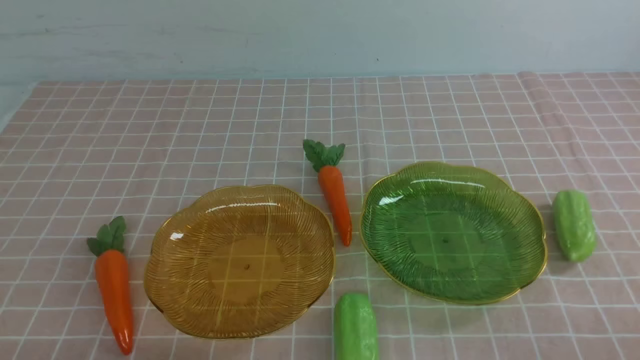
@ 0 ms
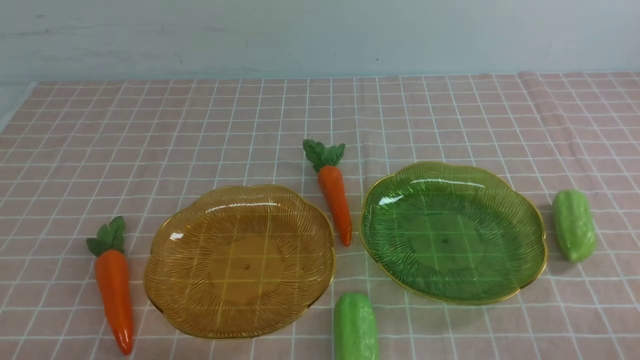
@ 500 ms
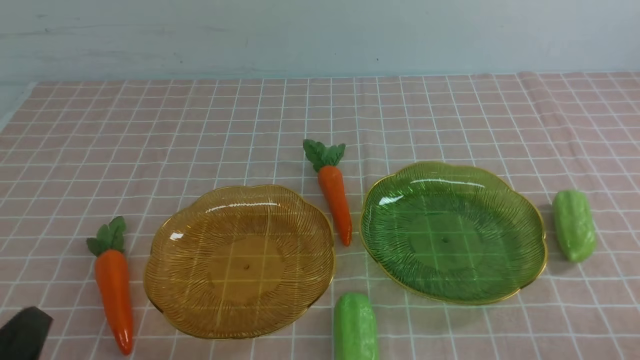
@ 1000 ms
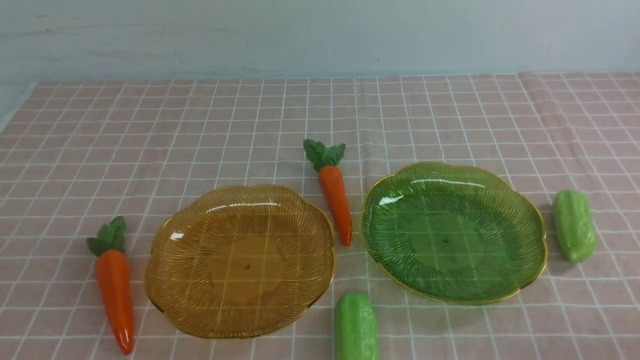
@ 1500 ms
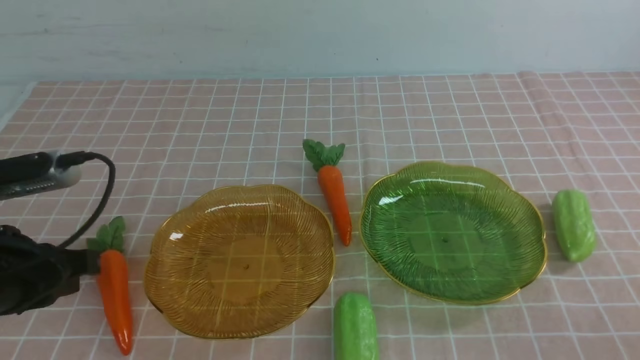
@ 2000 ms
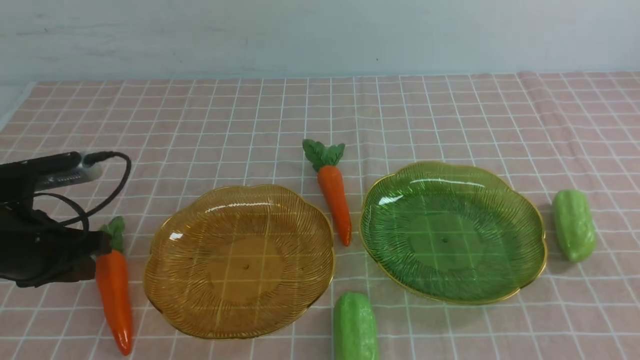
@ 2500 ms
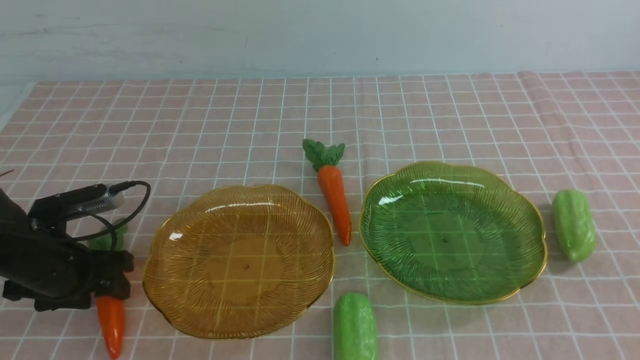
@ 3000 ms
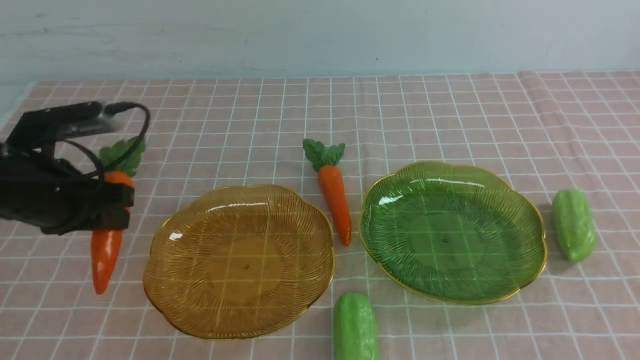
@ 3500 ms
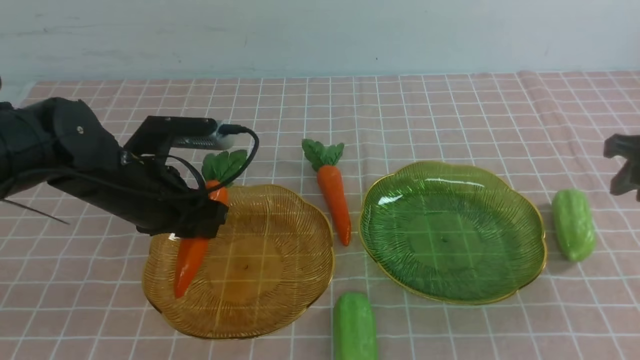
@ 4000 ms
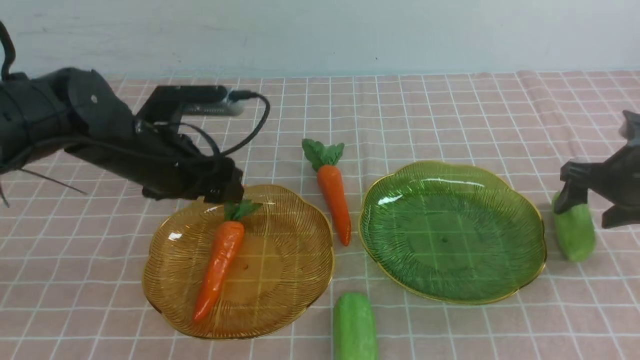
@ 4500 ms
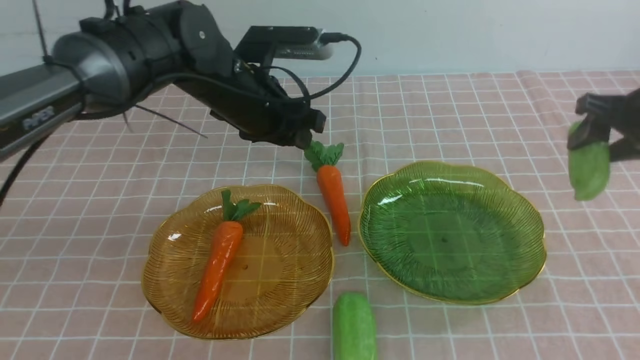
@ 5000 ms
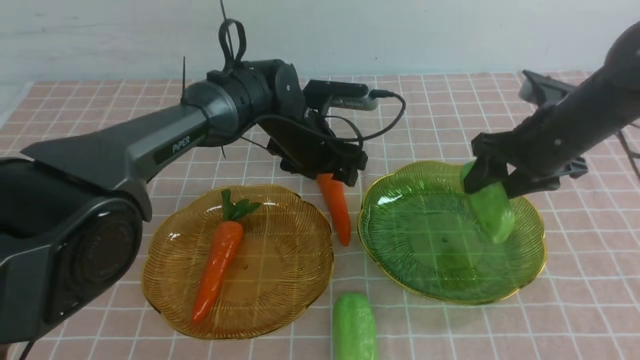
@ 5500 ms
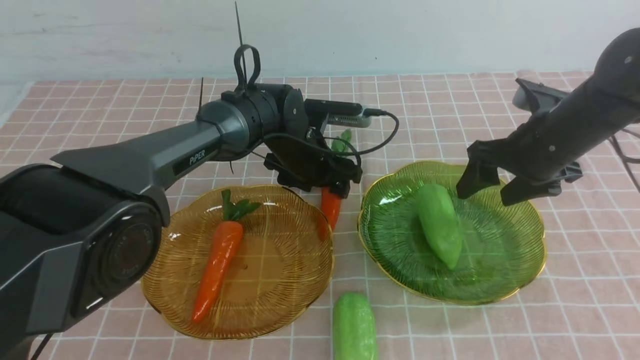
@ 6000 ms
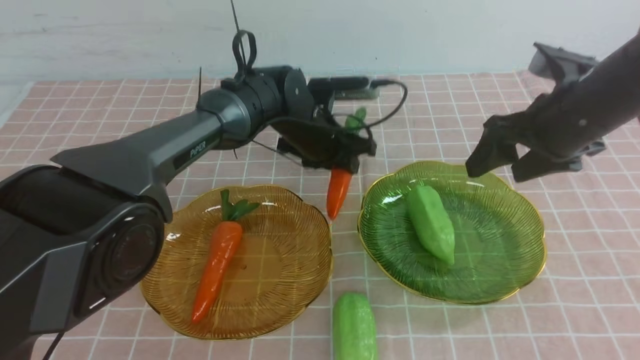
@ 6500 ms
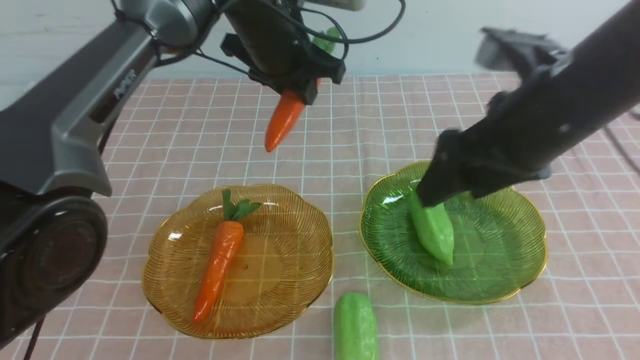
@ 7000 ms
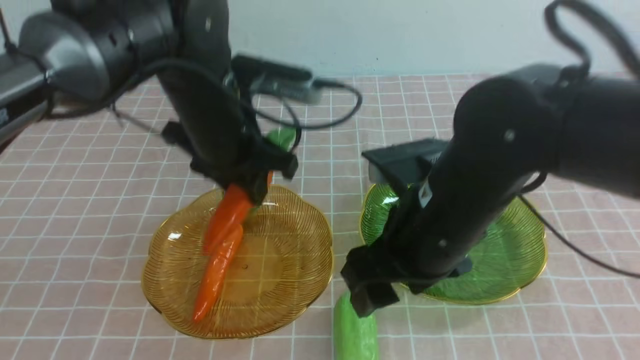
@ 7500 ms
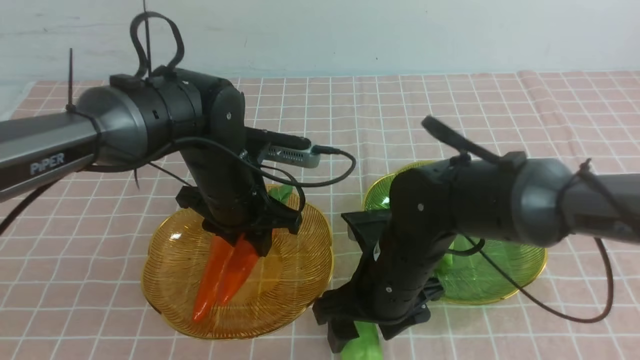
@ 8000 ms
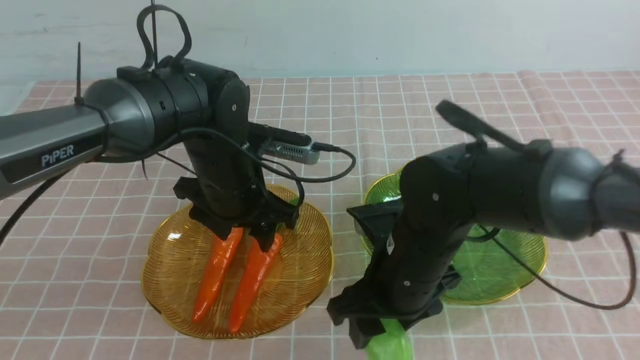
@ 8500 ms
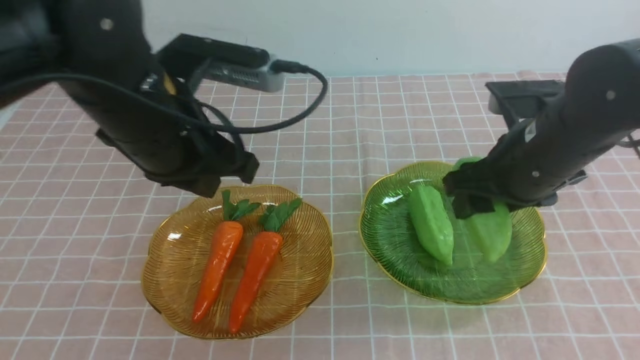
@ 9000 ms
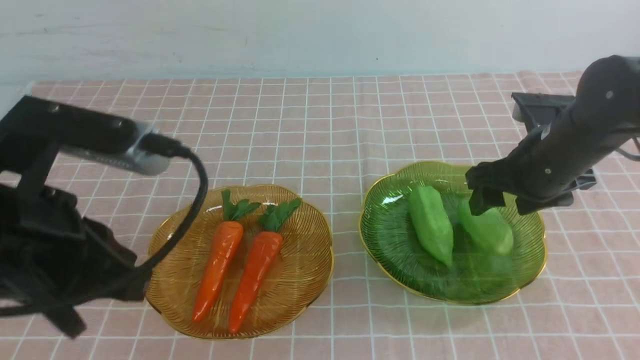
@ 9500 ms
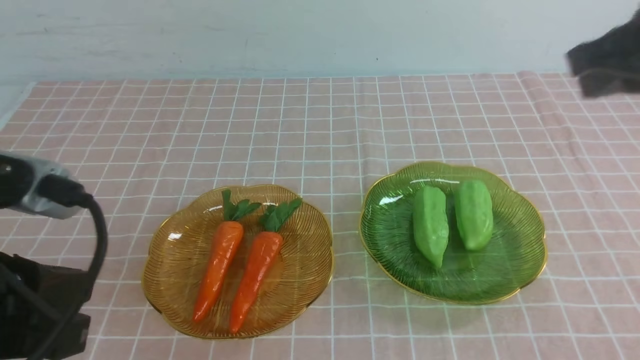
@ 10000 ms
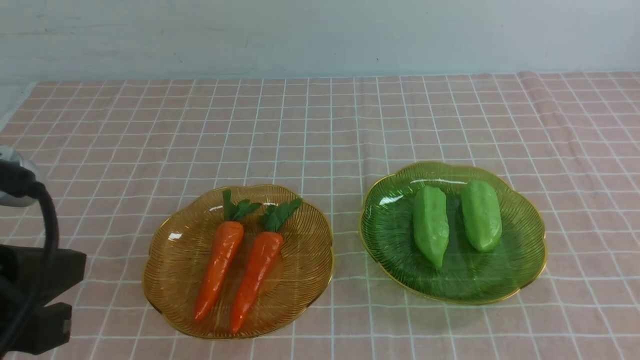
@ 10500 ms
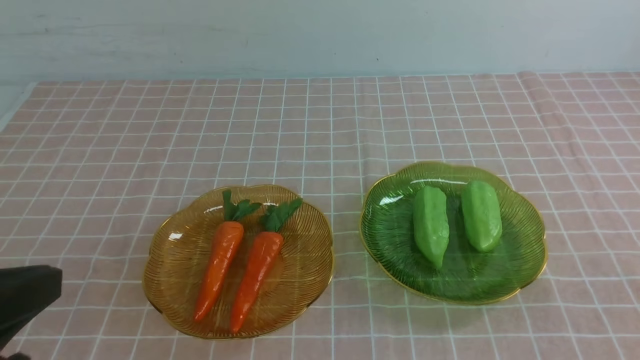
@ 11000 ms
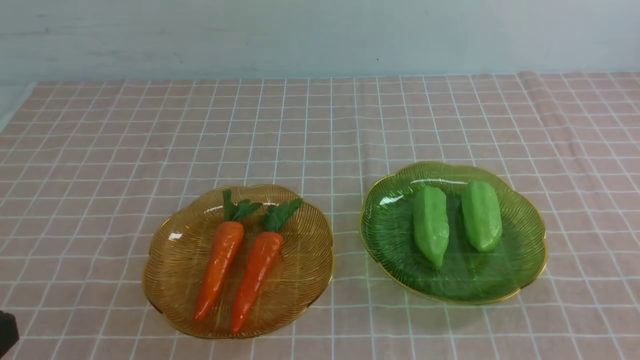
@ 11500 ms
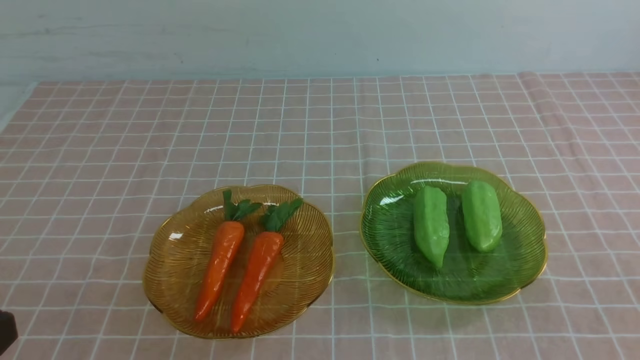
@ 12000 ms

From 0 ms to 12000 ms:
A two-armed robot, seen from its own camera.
Step, from 0 ms to 4000 ms: use the left arm to grab a carrot and put it into the left plate.
Step, from 4500 ms to 5500 ms: use the right arm to grab a chayote and put it into the right plate.
Step, from 6000 ms to 8000 ms: use the left arm to grab a carrot and put it into the left plate.
Step, from 8500 ms to 9500 ms: use the right arm to grab a chayote and put it into the right plate.
From 0 ms to 2000 ms: The left gripper moves forward and upward, about 20 cm.
From 2000 ms to 4000 ms: The left gripper travels forward and to the right by roughly 15 cm, and opens; the right gripper goes some 30 cm forward, and opens its fingers.
From 4000 ms to 6000 ms: The right gripper shifts approximately 10 cm to the left, while the left gripper is displaced to the right and forward by some 20 cm.
From 6000 ms to 8000 ms: The left gripper shifts some 20 cm backward, upward and to the left; the right gripper moves to the left and backward, about 15 cm.
From 8000 ms to 10000 ms: The left gripper travels backward and to the left by about 25 cm, and closes. Meanwhile the right gripper is displaced backward, to the right and upward by roughly 30 cm, and closes.
From 10000 ms to 12000 ms: The left gripper moves downward and backward, about 15 cm.

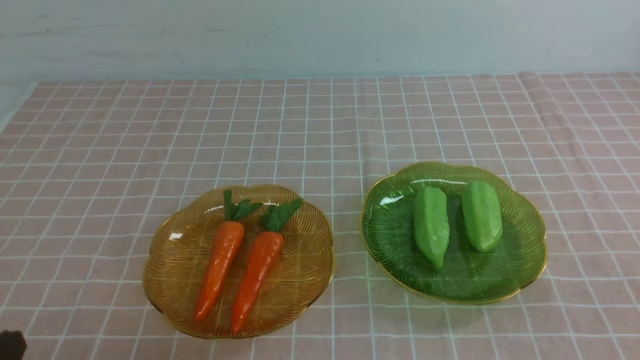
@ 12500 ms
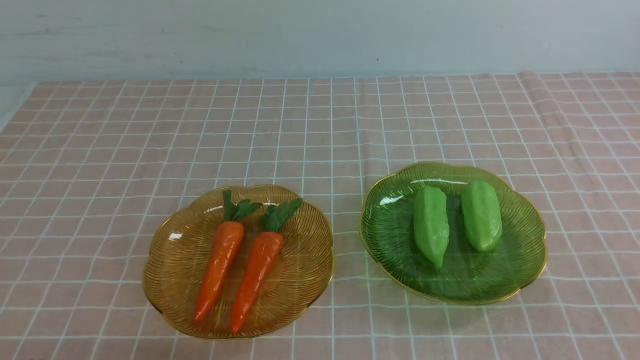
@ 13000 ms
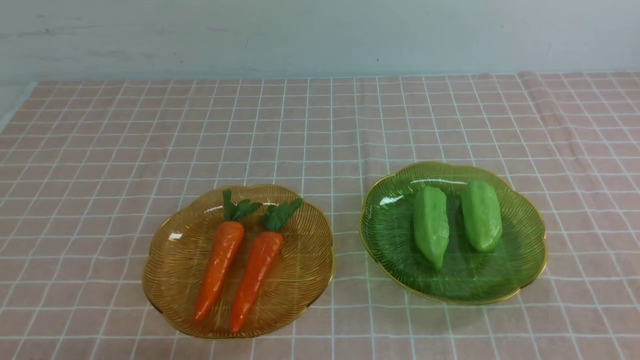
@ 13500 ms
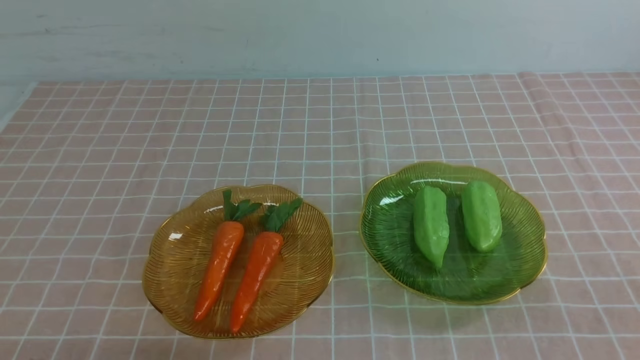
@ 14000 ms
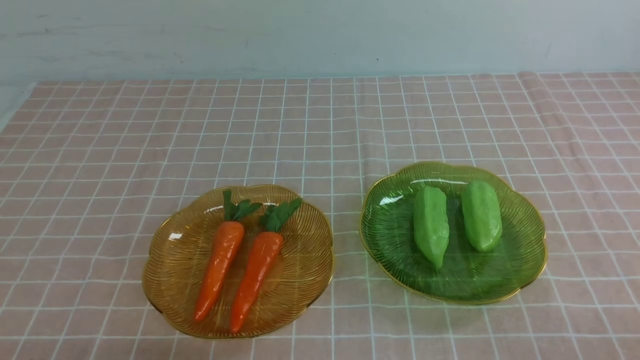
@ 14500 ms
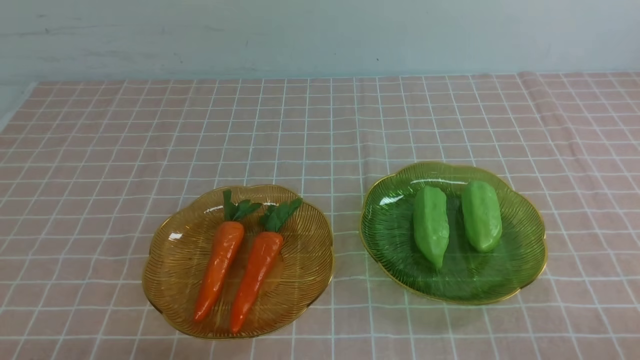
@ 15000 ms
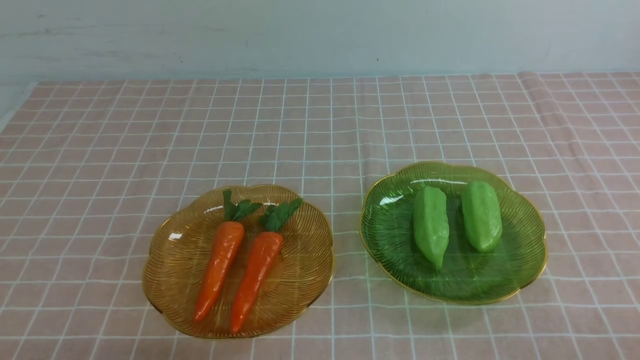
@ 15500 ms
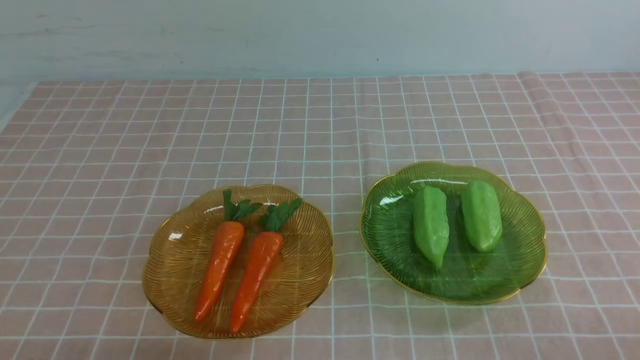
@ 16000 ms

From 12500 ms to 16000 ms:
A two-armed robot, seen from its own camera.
From 14500 ms to 16000 ms: Both grippers stay put.
